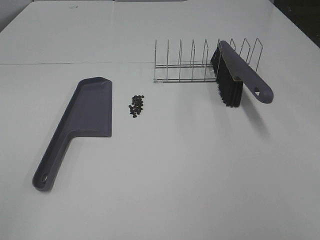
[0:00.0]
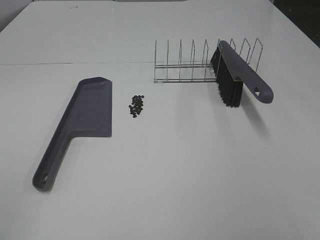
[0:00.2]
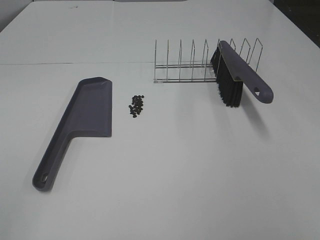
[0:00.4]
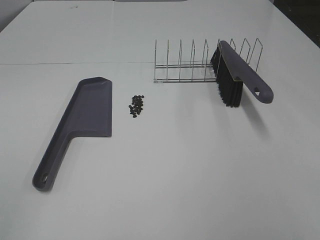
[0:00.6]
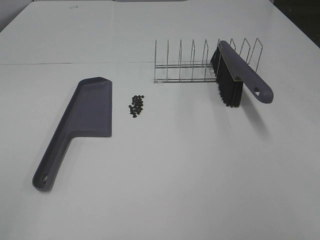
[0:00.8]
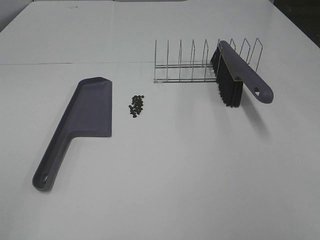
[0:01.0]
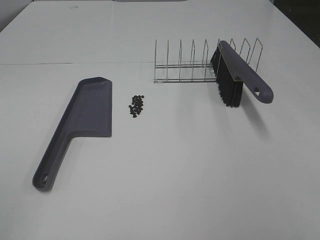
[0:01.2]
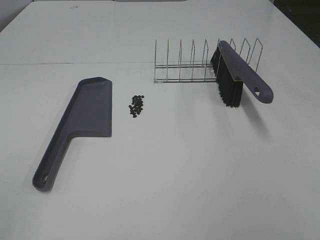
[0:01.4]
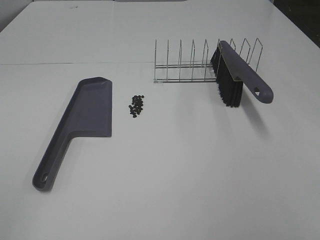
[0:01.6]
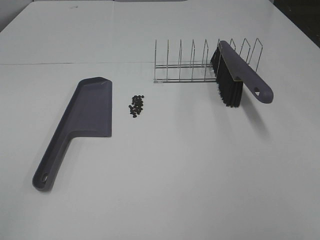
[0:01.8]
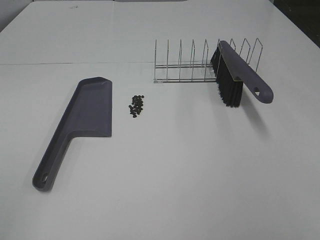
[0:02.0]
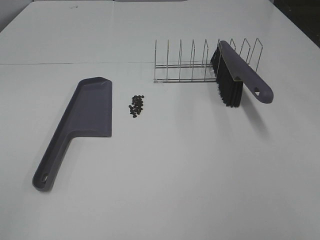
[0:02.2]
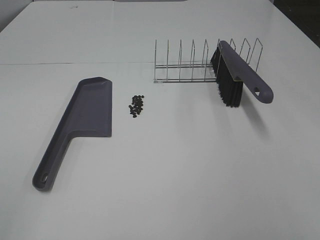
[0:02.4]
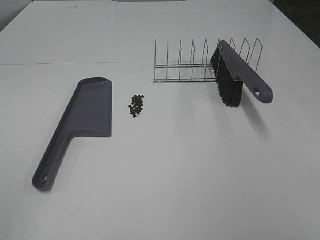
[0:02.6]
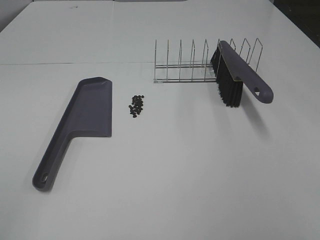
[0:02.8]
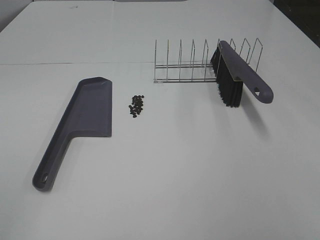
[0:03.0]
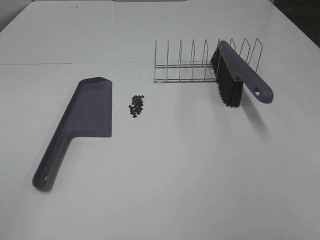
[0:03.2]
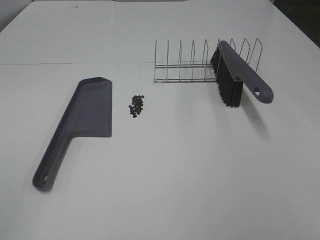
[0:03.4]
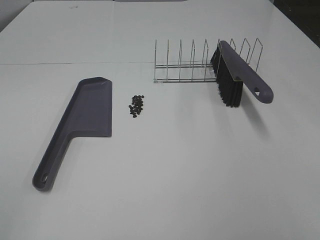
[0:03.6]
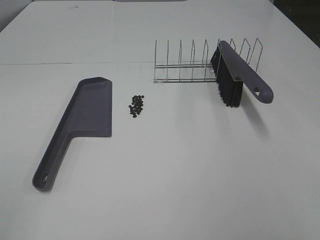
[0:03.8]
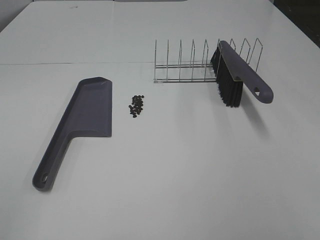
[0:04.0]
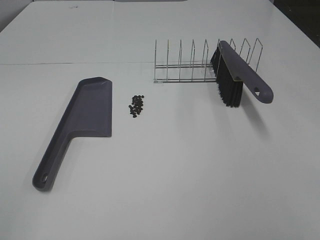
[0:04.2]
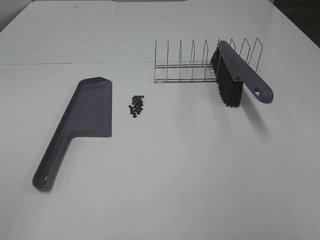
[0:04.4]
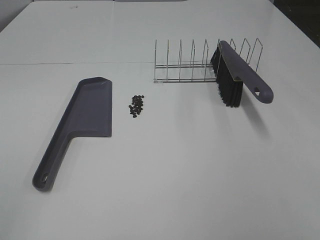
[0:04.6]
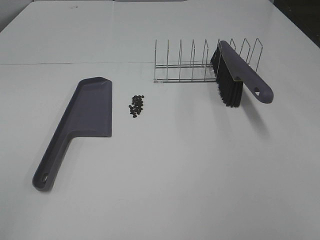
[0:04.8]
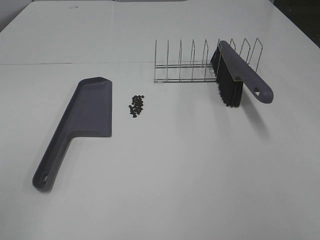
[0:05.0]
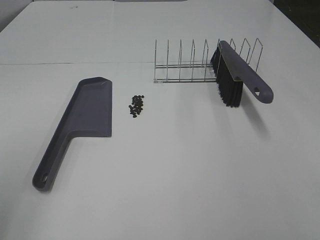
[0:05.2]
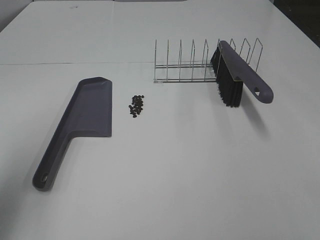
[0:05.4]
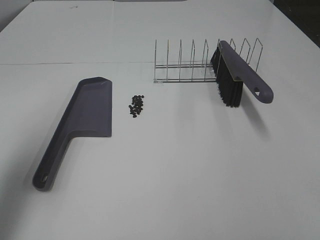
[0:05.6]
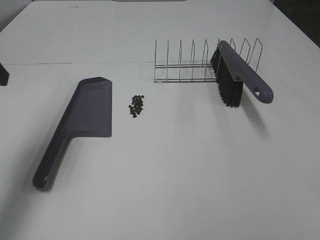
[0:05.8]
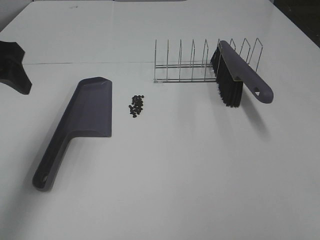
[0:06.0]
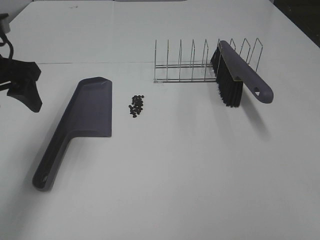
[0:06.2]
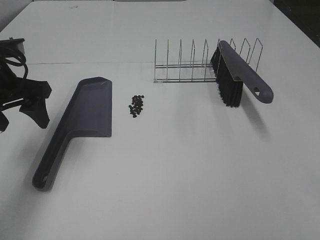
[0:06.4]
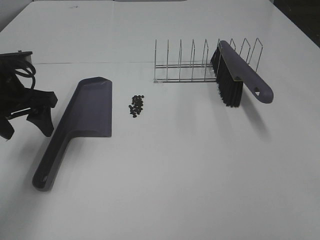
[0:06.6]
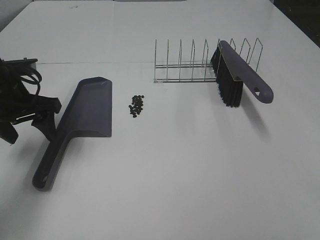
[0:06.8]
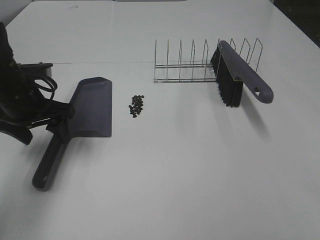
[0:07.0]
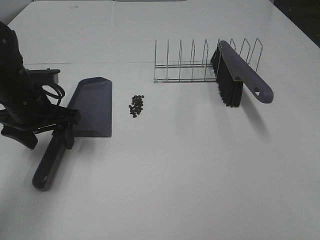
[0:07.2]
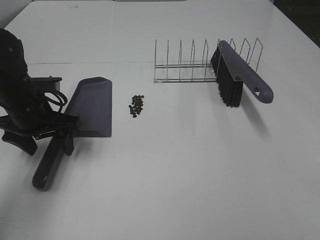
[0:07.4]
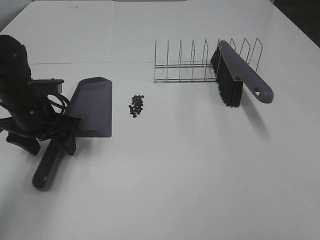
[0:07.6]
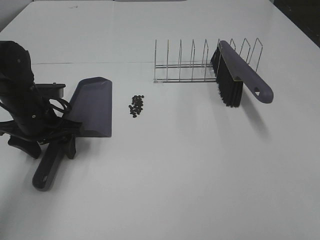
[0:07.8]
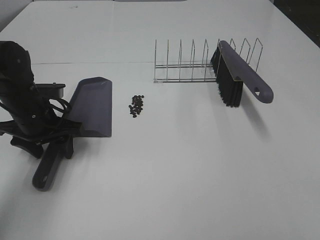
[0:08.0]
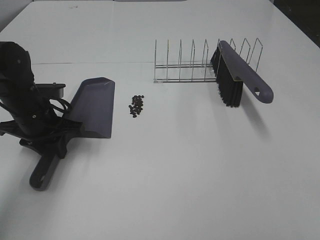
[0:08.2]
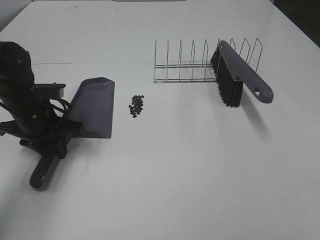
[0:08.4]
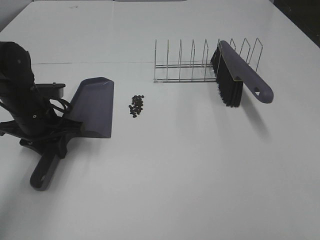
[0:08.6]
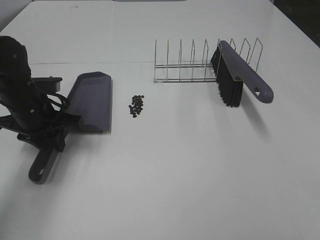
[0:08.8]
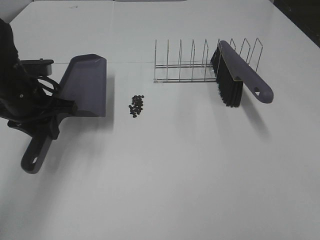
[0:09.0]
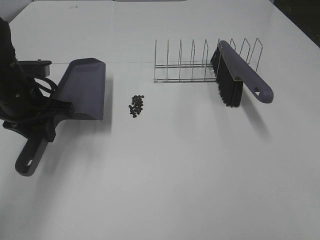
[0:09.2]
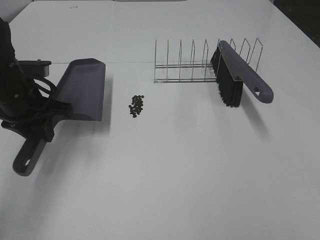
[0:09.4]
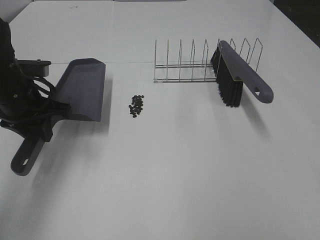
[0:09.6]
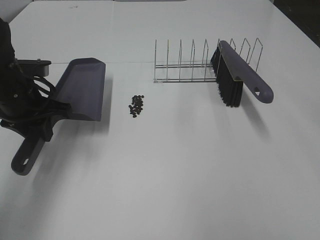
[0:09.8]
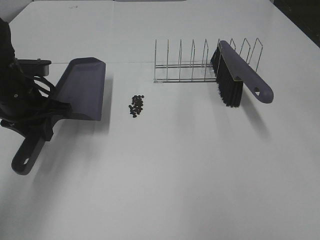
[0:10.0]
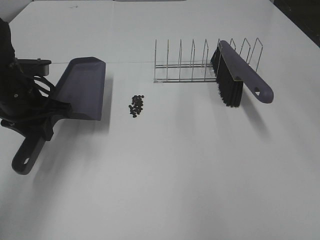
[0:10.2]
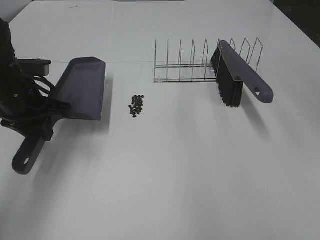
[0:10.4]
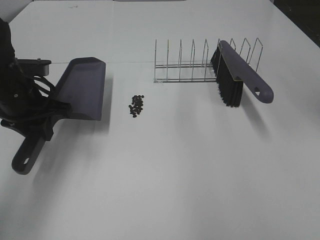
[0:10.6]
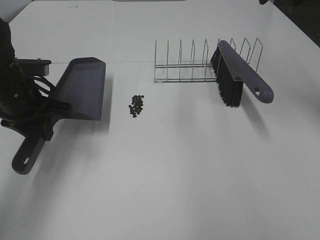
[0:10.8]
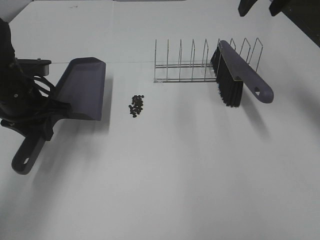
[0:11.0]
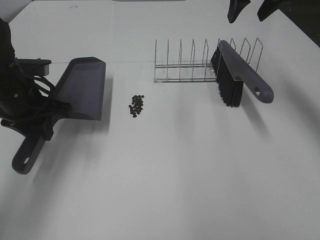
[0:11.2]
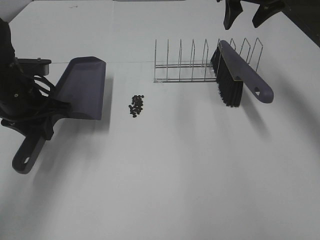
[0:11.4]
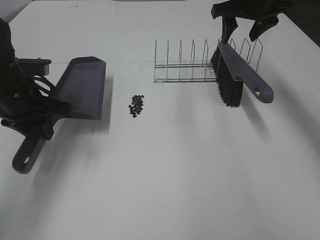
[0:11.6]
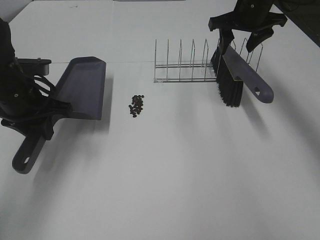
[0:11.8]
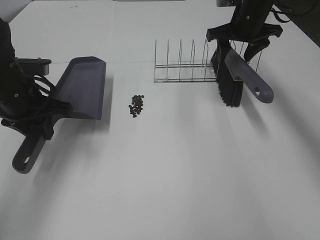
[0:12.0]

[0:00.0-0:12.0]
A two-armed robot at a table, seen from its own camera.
Task of the whole recording: Sweep Coffee Bean.
Step, 0:00.0 to 0:08.0: Left hand: grab the dustpan.
0:00.0 to 0:04.4: Both grippers stay put.
0:04.4 to 0:06.0: The left gripper moves forward, some 30 cm.
0:06.0 to 0:07.6: The left gripper is displaced downward by some 15 cm.
0:07.6 to 0:09.0: The left gripper closes.
0:10.4 to 0:12.0: The right gripper is displaced downward and forward by some 30 cm.

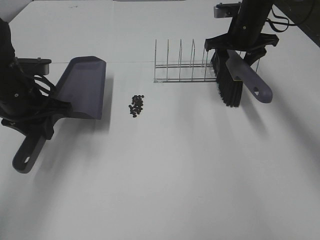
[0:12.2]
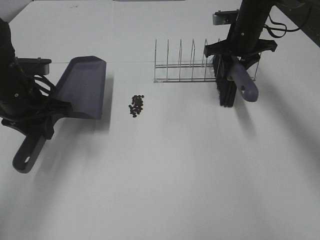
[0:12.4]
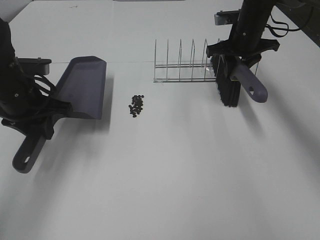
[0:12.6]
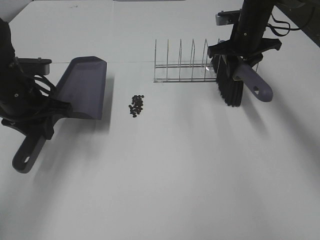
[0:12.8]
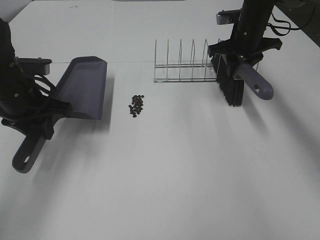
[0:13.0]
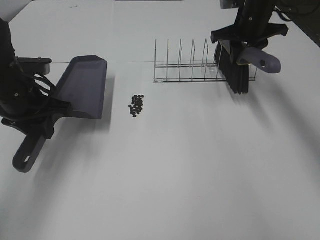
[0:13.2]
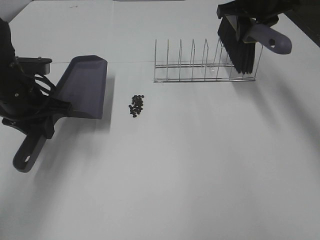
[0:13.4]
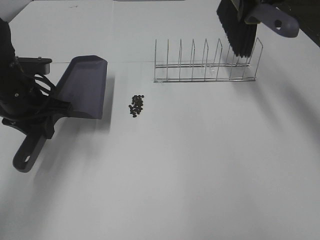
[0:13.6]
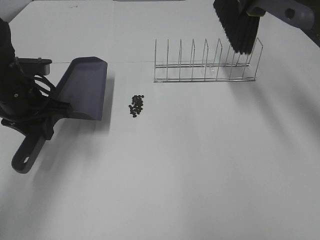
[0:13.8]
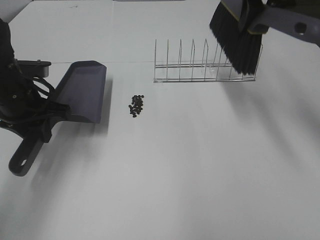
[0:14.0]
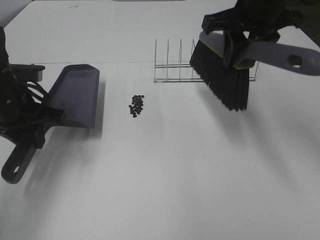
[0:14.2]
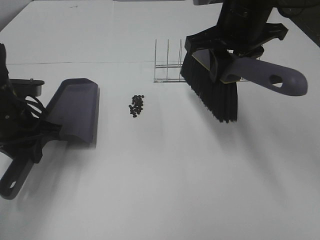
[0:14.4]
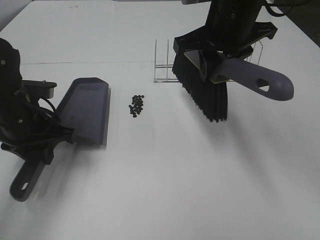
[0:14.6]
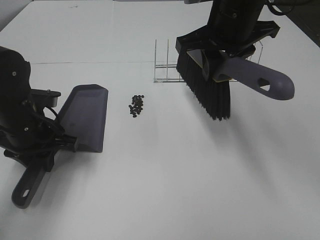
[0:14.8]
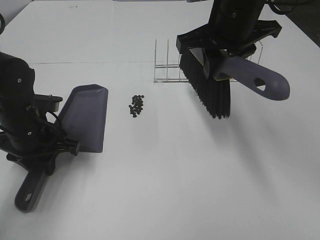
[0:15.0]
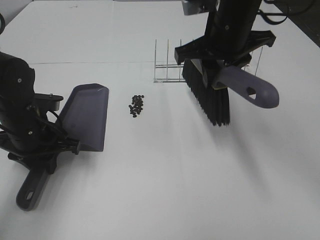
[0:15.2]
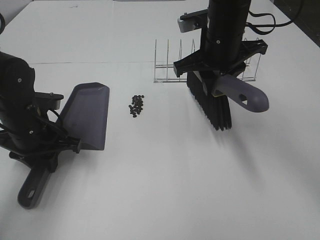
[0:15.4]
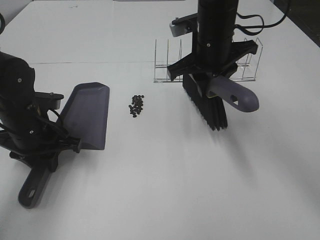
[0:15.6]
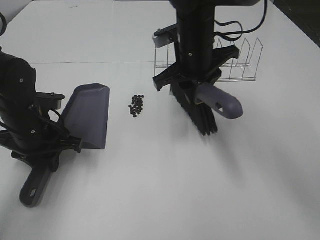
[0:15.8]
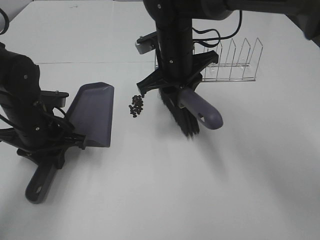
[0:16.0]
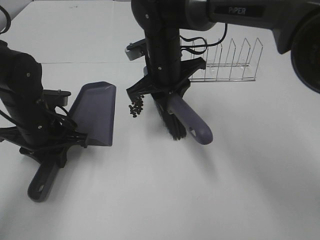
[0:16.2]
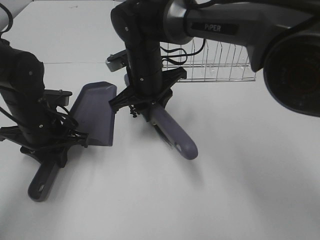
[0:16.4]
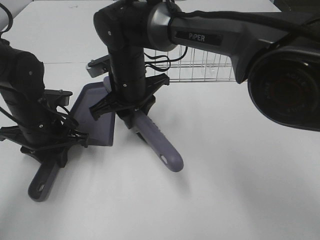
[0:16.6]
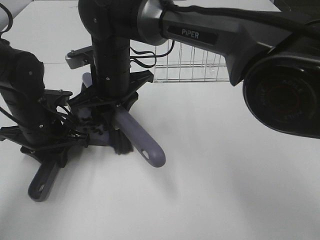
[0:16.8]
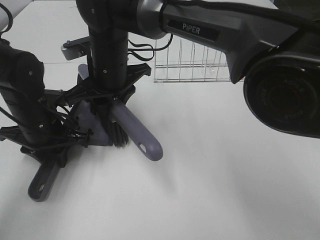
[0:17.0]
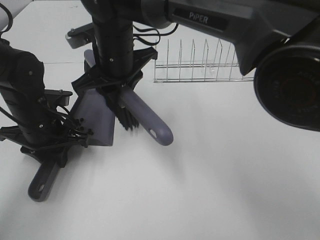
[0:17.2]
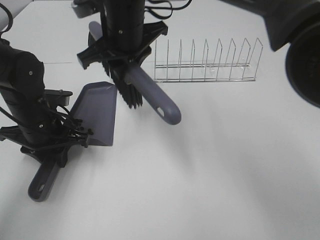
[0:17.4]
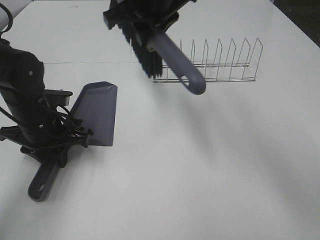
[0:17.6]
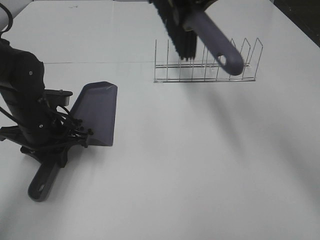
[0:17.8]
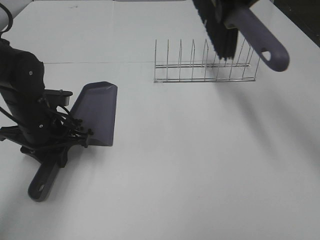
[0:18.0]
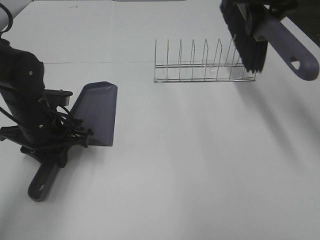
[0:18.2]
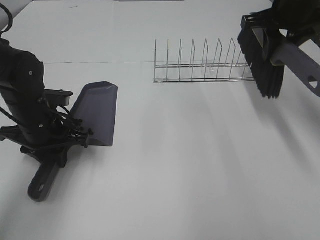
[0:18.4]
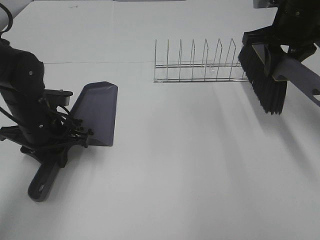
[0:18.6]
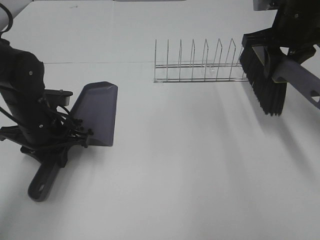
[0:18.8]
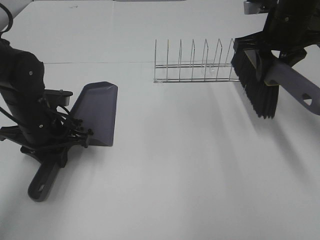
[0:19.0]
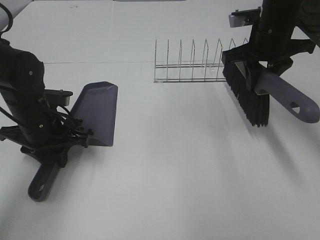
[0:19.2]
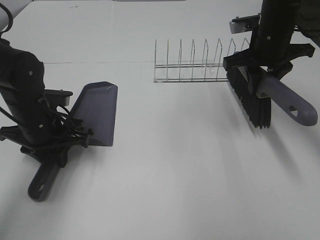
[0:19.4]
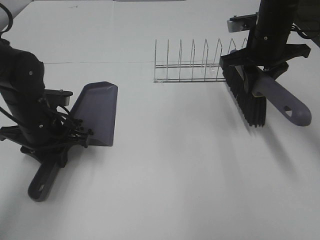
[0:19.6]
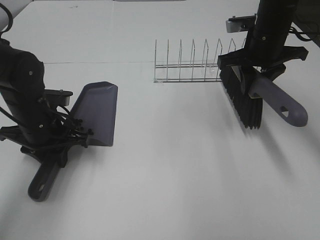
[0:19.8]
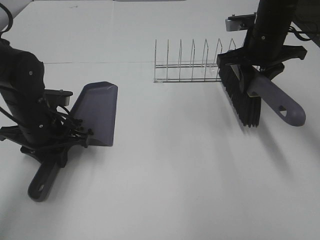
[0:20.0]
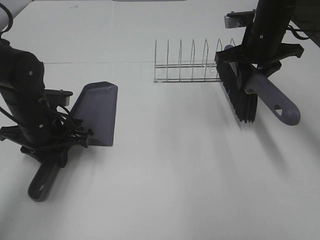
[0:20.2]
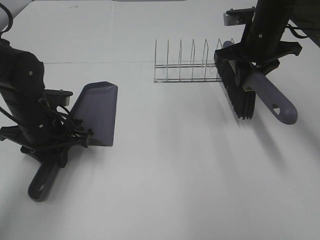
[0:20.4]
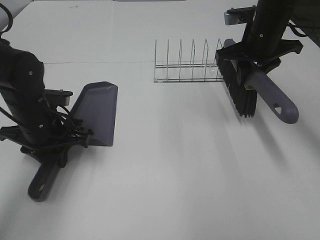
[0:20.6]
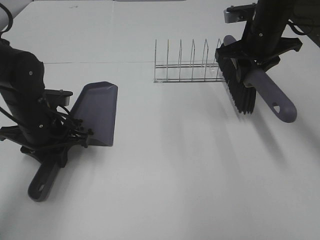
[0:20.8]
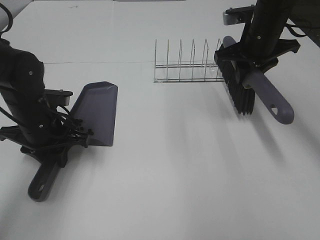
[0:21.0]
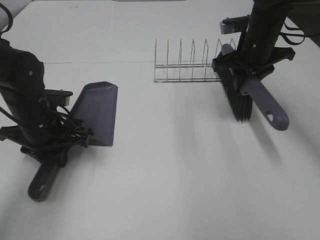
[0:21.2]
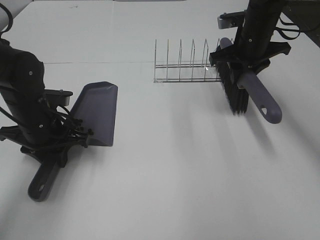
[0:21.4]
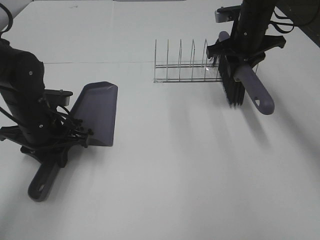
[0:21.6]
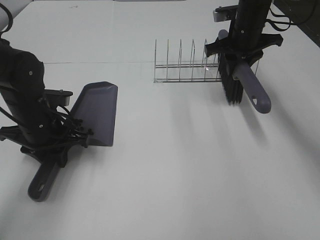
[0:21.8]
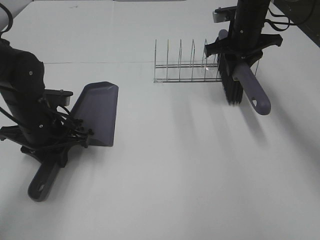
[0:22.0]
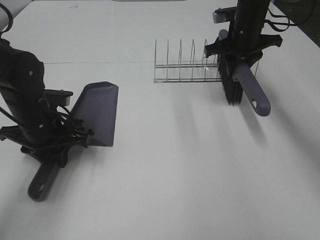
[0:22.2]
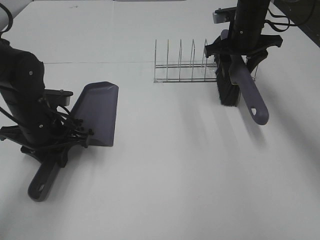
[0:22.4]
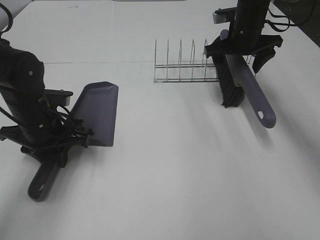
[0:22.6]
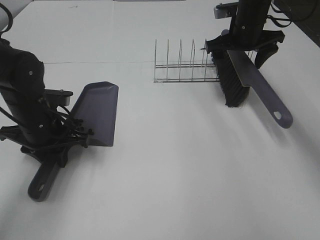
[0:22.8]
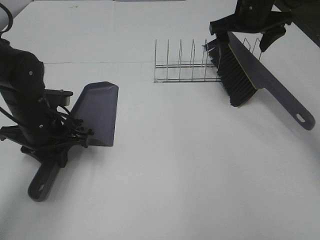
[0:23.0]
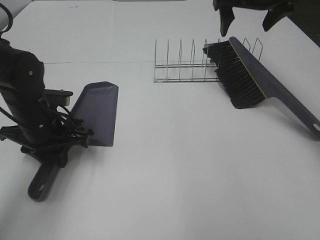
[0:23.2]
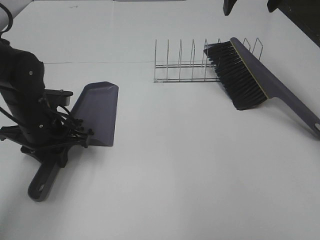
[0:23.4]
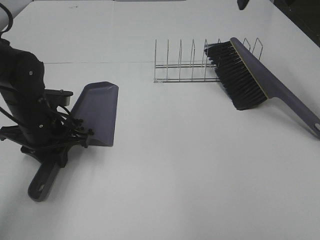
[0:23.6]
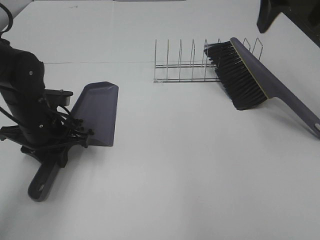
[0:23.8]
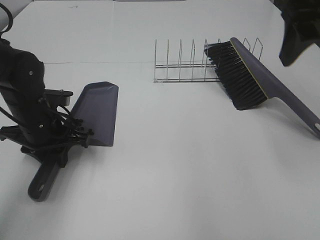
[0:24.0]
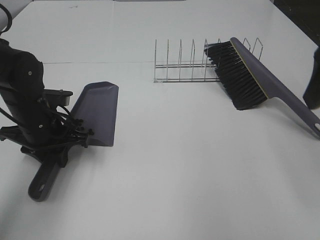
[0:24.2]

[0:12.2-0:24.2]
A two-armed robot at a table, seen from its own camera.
Task of the whole recording: Sweep Coffee Bean.
Step, 0:12.2 to 0:16.2: Left hand: move the dustpan to the left side of the coffee beans.
Step, 0:12.8 to 0:17.0: Right hand:sweep the coffee beans into the dustpan.
Step, 0:17.2 to 0:22.4: Right hand:place the broom on the rack.
0:12.2 to 0:13.8: The right gripper heads upward and backward, covering about 15 cm, and closes.
0:13.8 to 0:15.2: The left gripper heads downward, covering some 5 cm. Meanwhile the right gripper shifts some 15 cm to the left, downward and backward.
0:15.2 to 0:16.6: The right gripper shifts some 20 cm to the left and downward.
0:16.6 to 0:18.2: The right gripper moves to the right and upward, approximately 30 cm.
0:18.2 to 0:19.8: The right gripper shifts about 10 cm downward.
0:19.8 to 0:21.2: The grippers stay close to where they were, moving slightly.
0:21.2 to 0:22.6: The right gripper travels forward by about 5 cm, and opens its fingers.
0:22.6 to 0:24.2: The right gripper is displaced backward and upward by about 30 cm.
